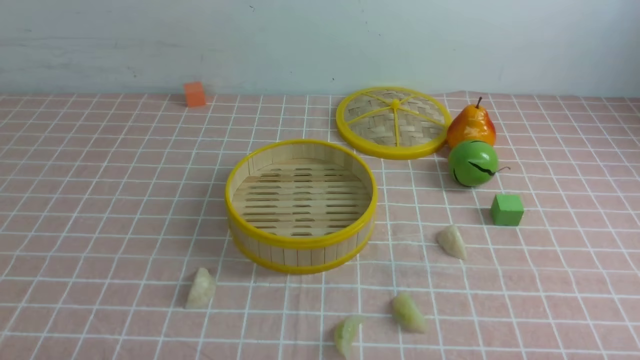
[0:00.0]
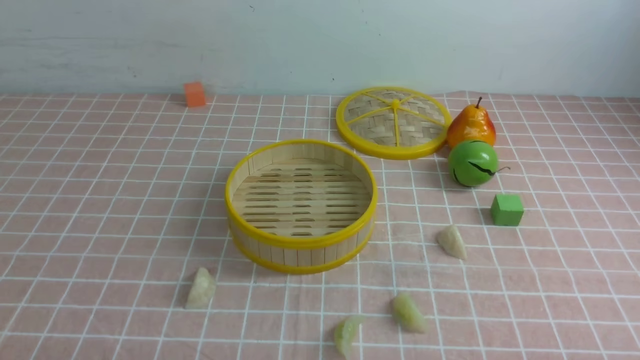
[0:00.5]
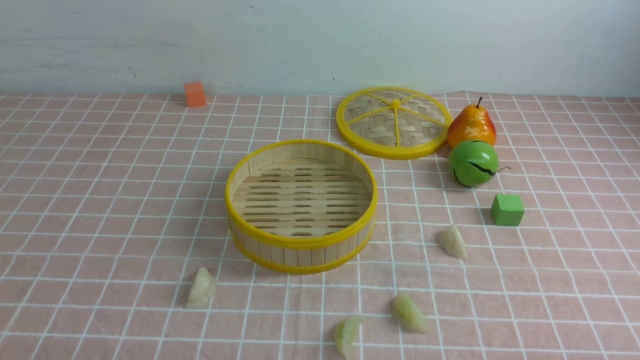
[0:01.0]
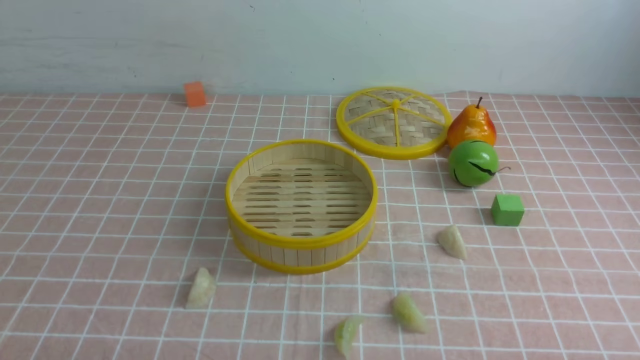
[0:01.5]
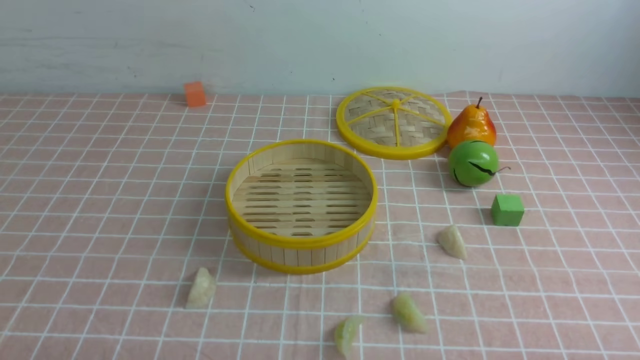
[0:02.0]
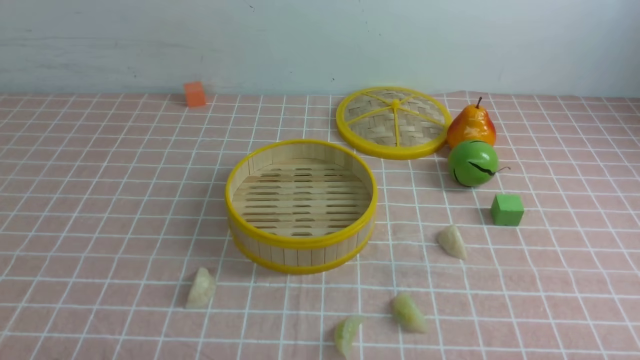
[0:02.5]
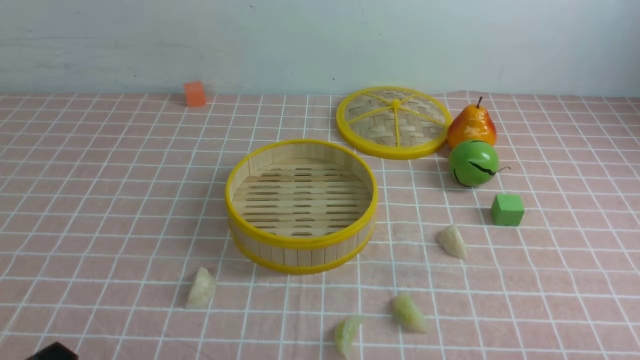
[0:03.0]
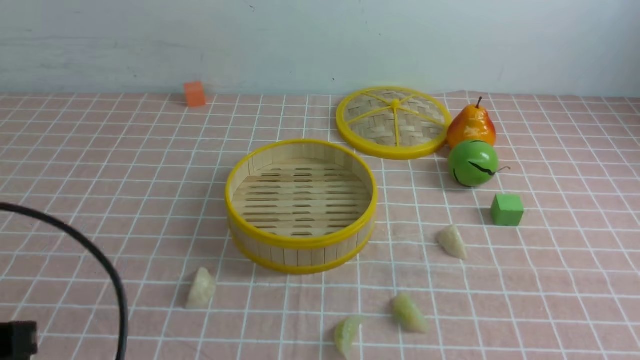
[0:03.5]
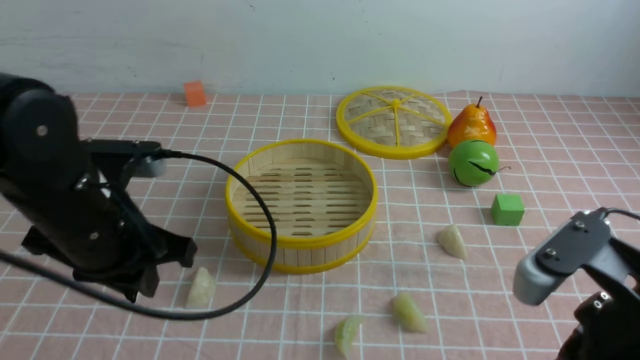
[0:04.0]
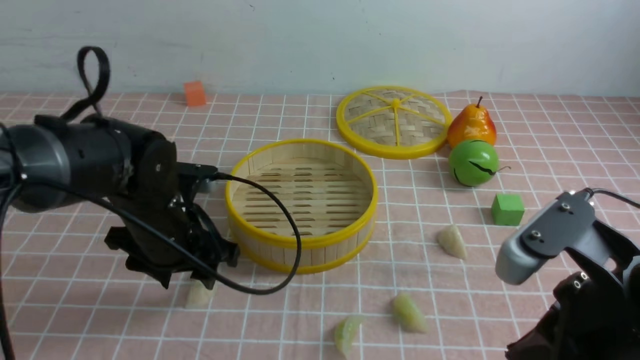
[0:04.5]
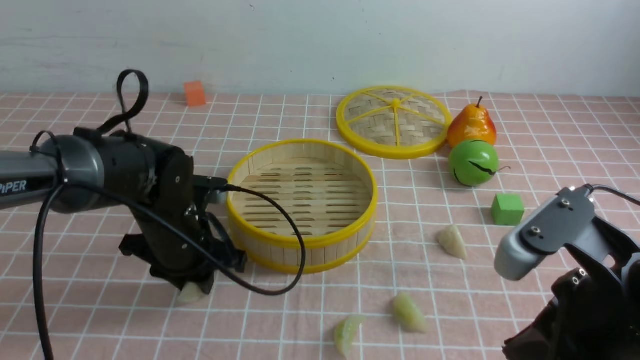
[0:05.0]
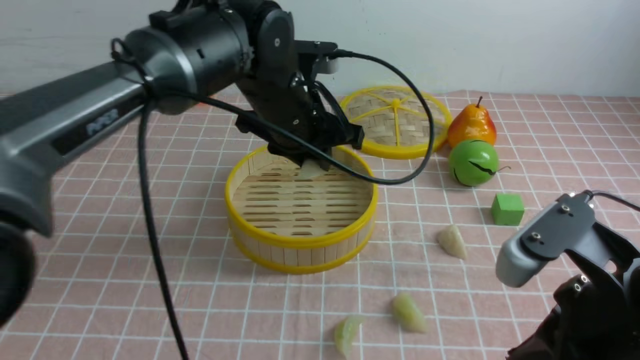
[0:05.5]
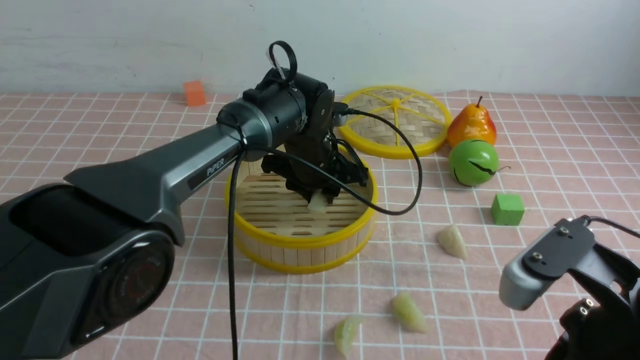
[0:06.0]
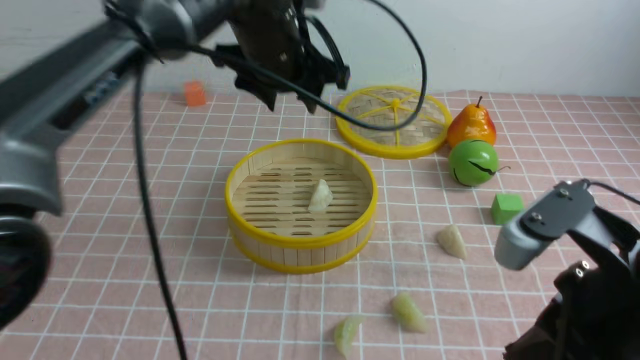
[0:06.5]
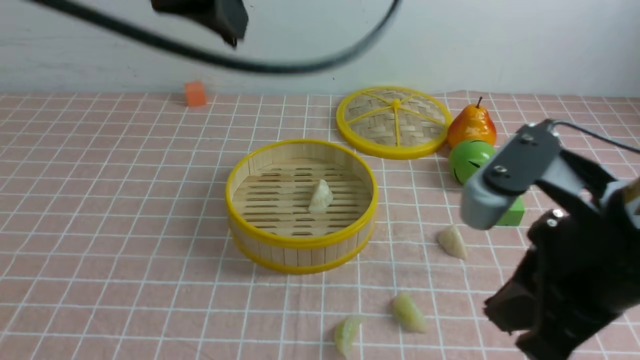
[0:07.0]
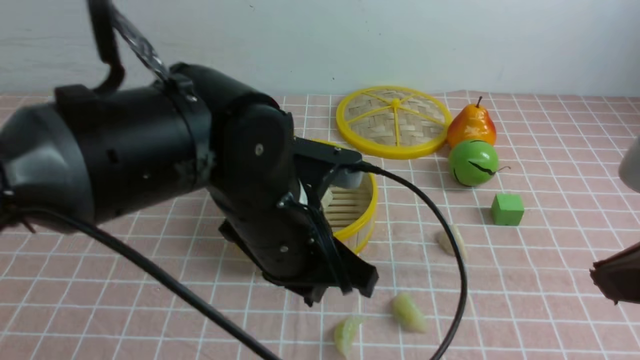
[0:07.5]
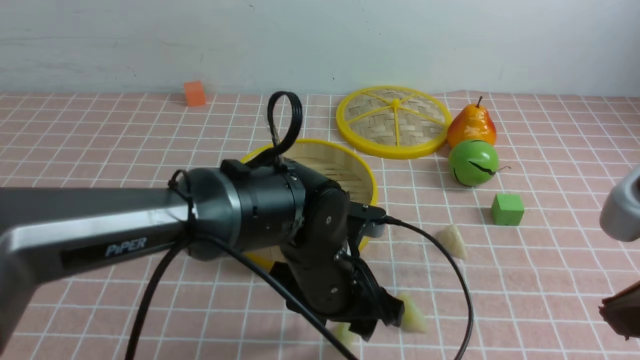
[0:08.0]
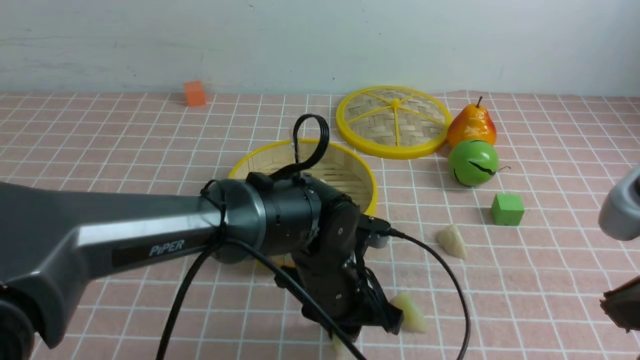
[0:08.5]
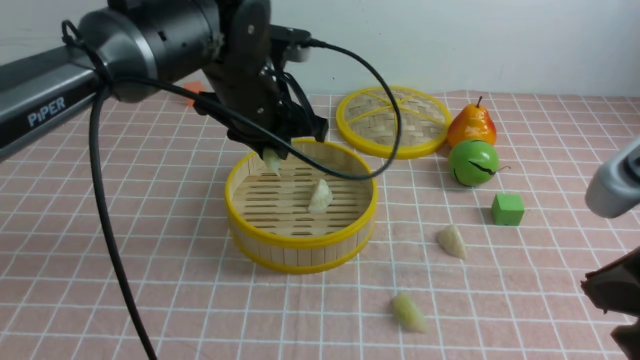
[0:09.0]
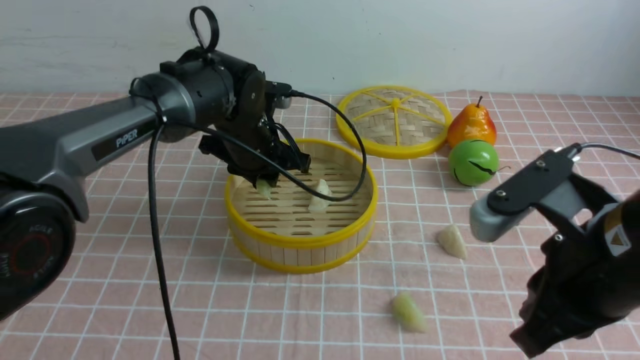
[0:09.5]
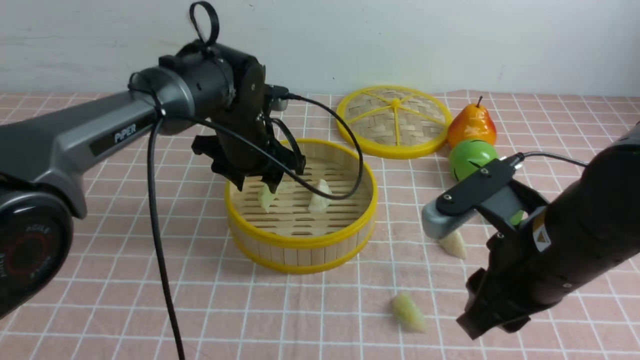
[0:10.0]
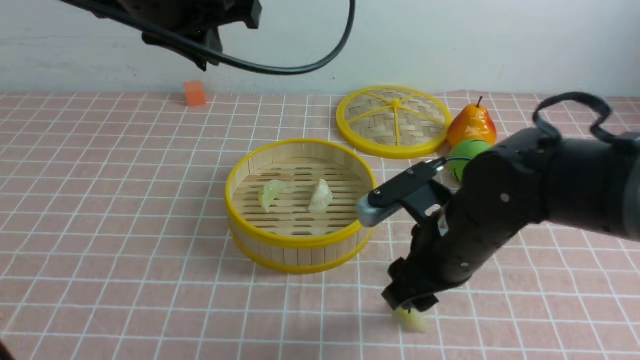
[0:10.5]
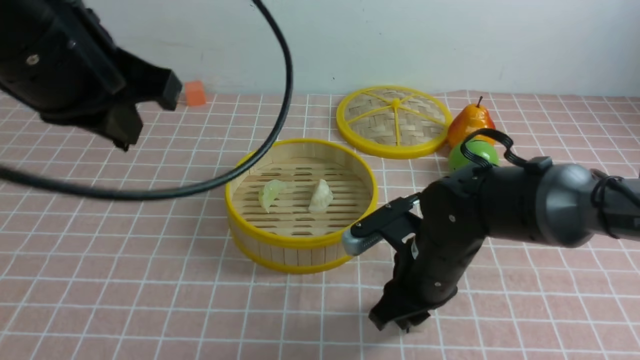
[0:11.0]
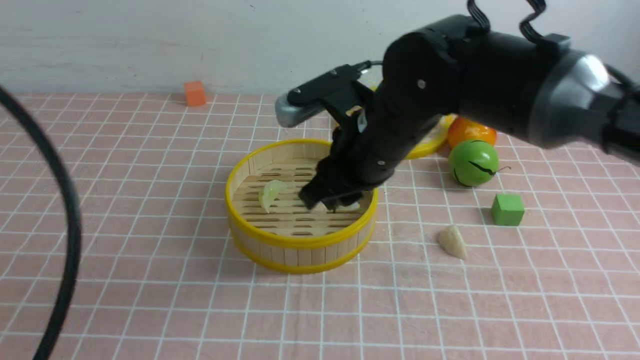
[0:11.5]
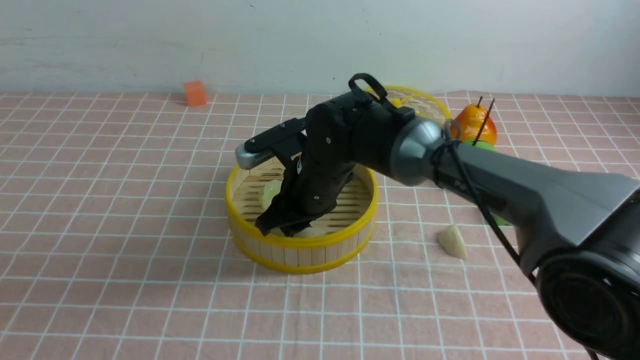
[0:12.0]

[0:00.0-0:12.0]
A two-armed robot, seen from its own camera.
Task of the whole recording: put the dumplings into the steamer on the table with the pink tablecloth.
Step, 0:00.0 to 0:05.0: use the left arm to grab a dumpling.
Step, 0:05.5 to 0:06.0: use the left arm to put the dumpling into the steamer.
Step, 0:06.5 to 0:08.5: use the left arm to grab a dumpling.
Step, 0:09.0 to 0:10.0: use the left arm to put the dumpling into the steamer.
Step, 0:10.5 to 0:11.0: use the right arm to grab a dumpling.
0:02.0 to 0:04.0: The right gripper shifts some 20 cm upward, forward and to the left, and closes up. The left gripper moves forward, upward and to the right, roughly 25 cm.
0:04.0 to 0:06.0: The left gripper goes approximately 30 cm forward and to the right, and opens up.
0:06.0 to 0:08.0: The left gripper is displaced backward by some 20 cm, moves roughly 25 cm upward and comes back, and closes, then opens again; the right gripper moves upward, approximately 10 cm.
0:08.0 to 0:10.0: The right gripper is displaced forward, downward and to the left by approximately 15 cm, and opens its fingers, while the left gripper heads forward and to the left, covering approximately 20 cm.
0:10.0 to 0:12.0: The right gripper shifts some 25 cm forward and to the left; the left gripper moves backward, upward and to the left, roughly 40 cm, and closes its fingers.

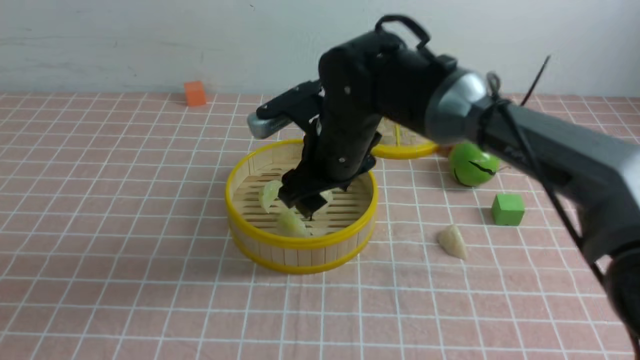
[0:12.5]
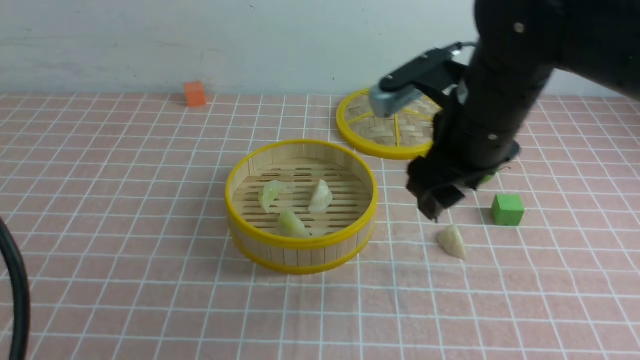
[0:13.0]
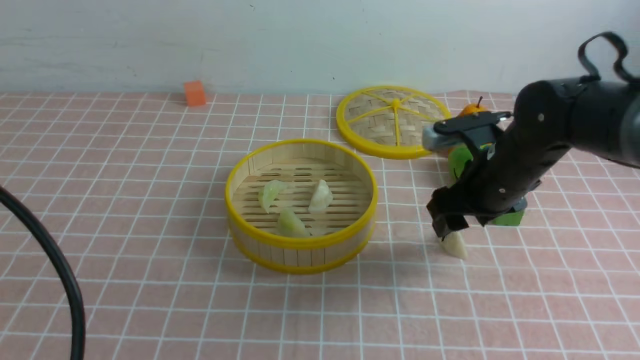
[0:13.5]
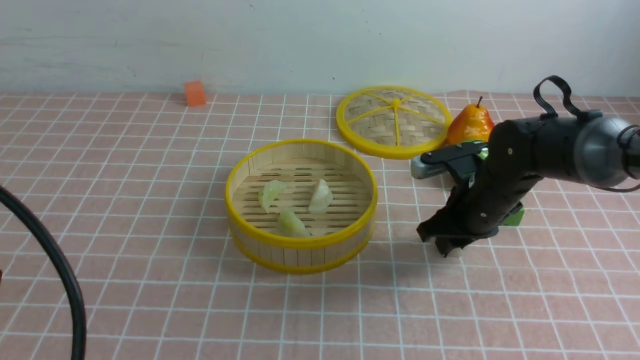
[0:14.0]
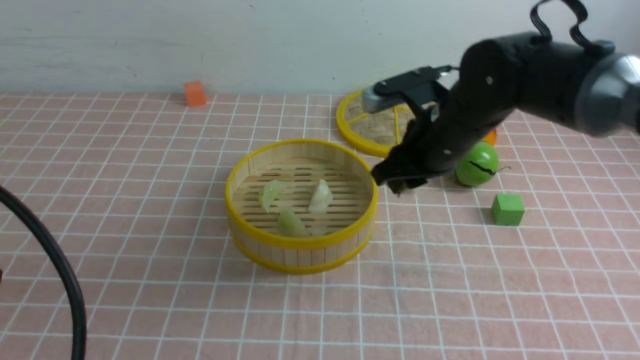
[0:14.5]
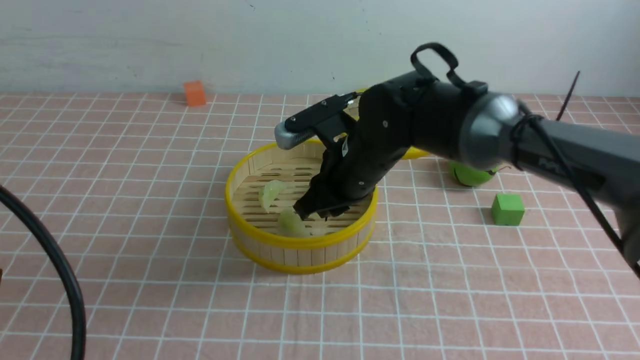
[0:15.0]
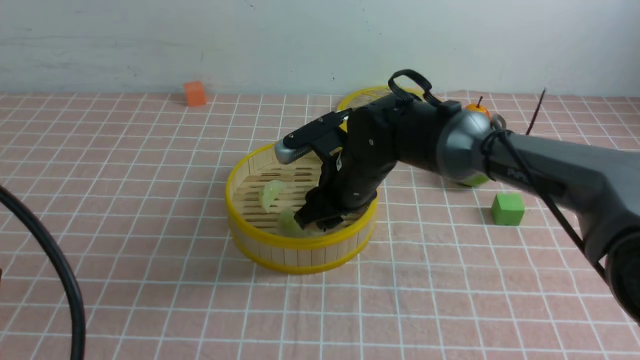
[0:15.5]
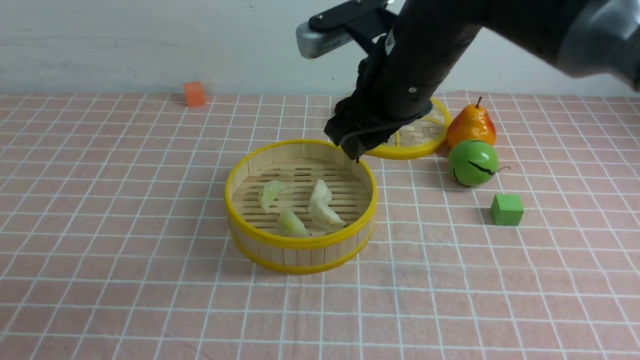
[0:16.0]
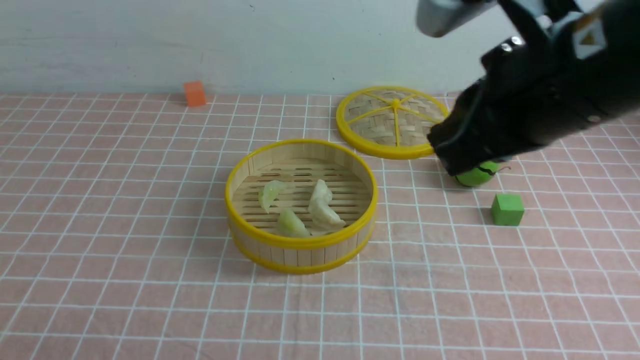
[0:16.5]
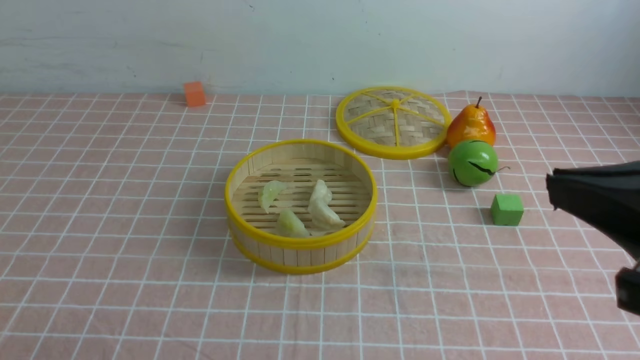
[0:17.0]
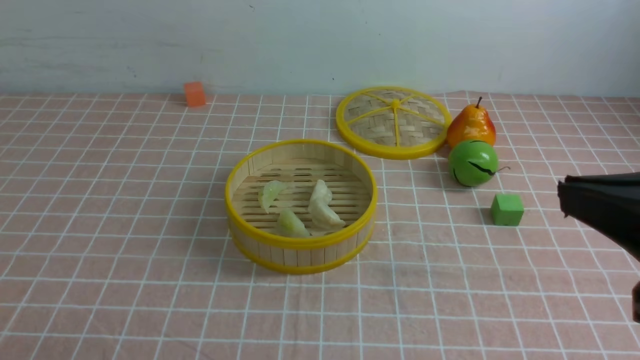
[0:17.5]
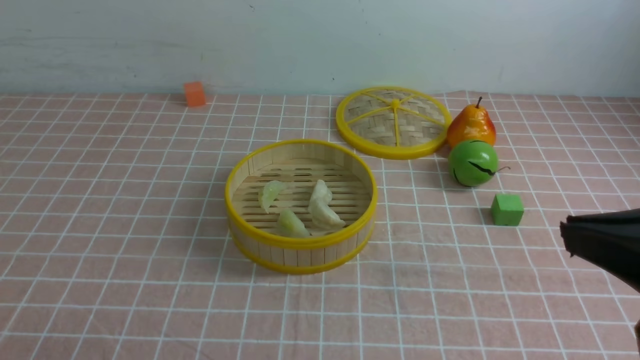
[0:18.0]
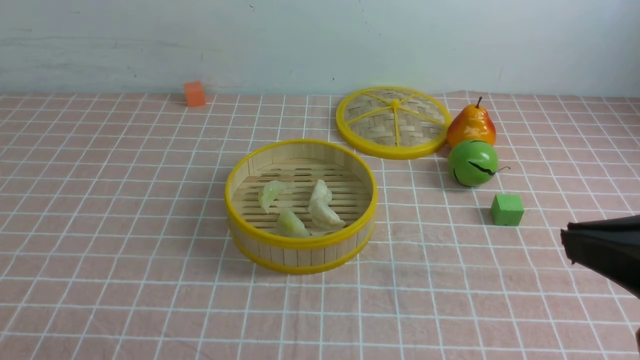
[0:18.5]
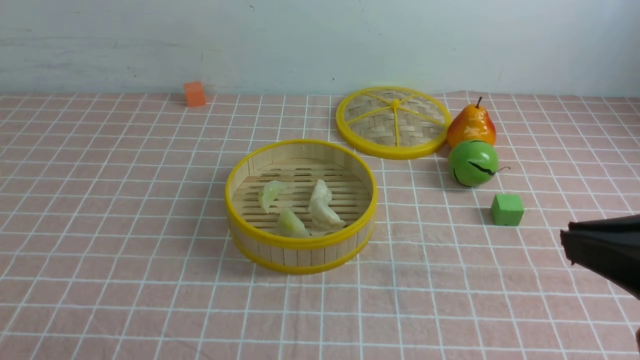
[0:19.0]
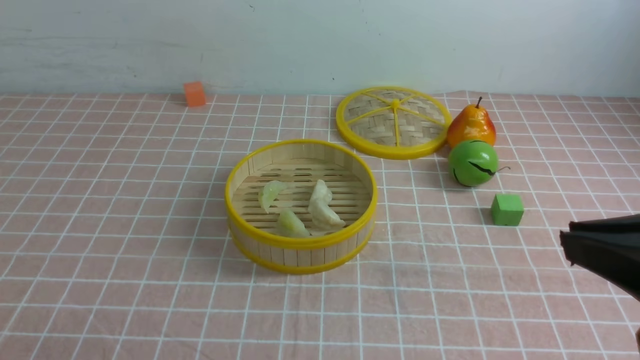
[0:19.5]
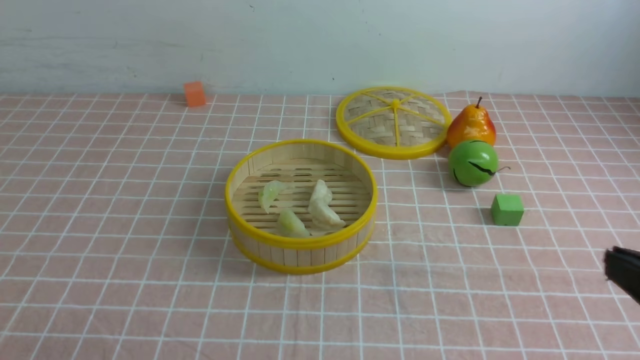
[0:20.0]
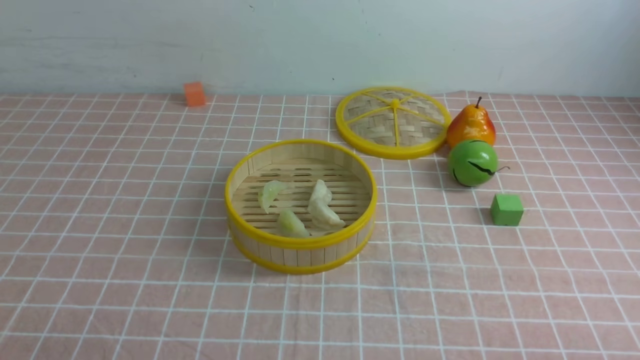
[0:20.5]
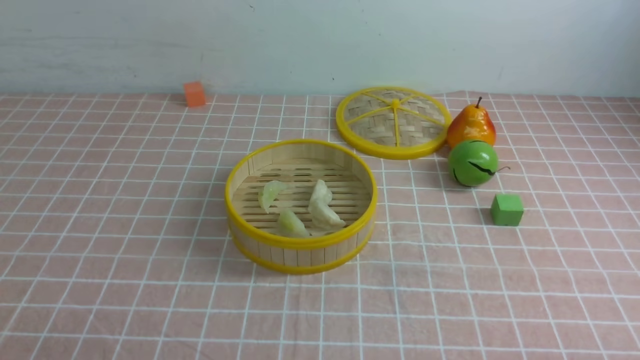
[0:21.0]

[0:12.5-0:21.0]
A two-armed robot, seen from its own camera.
Task of the whole recording: put the dumplings into the steamer on the table with the pink tablecloth.
Step, 0:12.5 to 0:14.0: use the right arm to grab a dumpling.
Step, 0:14.5 to 0:16.0: use the right arm to put the dumpling into the steamer.
0:12.5 to 0:14.5: The right gripper shifts some 15 cm to the right, and closes up.
0:14.5 to 0:16.5: The left gripper is displaced downward and backward by some 15 cm, while the right gripper travels upward and backward by some 25 cm.
0:16.5 to 0:19.0: The right gripper moves backward and to the right, approximately 15 cm.
0:19.0 to 0:21.0: The right gripper moves downward and to the right, about 20 cm.
